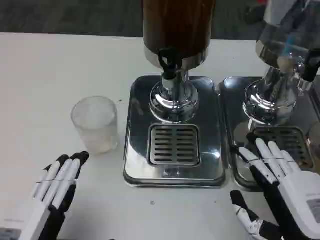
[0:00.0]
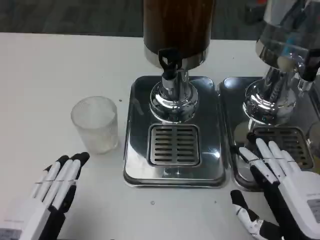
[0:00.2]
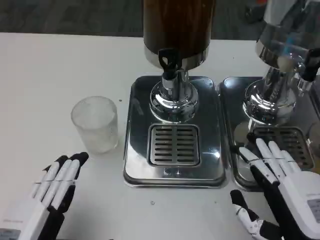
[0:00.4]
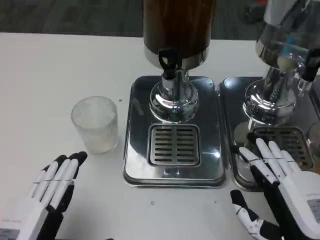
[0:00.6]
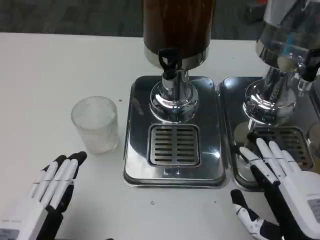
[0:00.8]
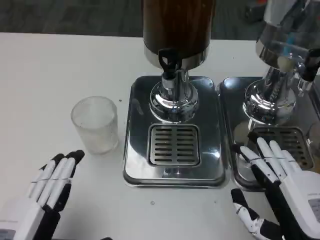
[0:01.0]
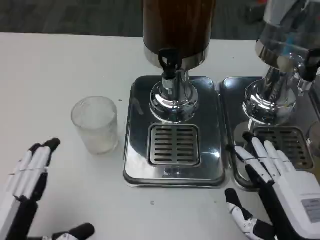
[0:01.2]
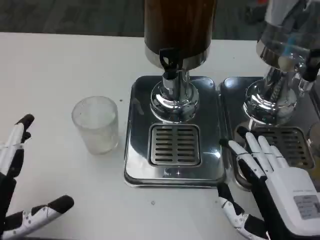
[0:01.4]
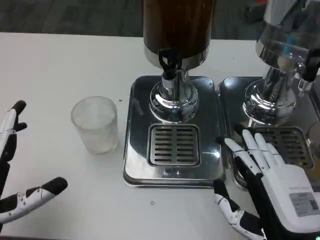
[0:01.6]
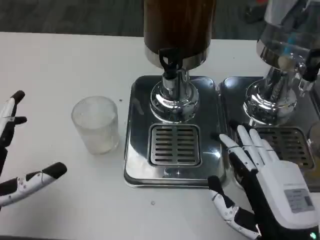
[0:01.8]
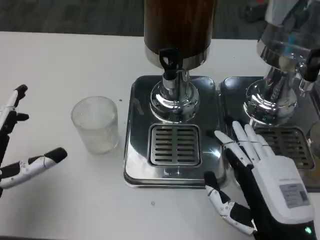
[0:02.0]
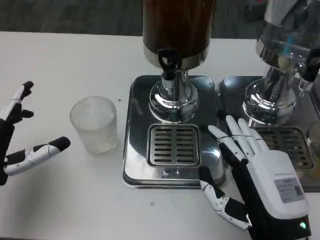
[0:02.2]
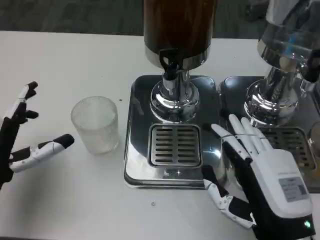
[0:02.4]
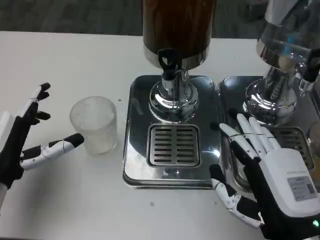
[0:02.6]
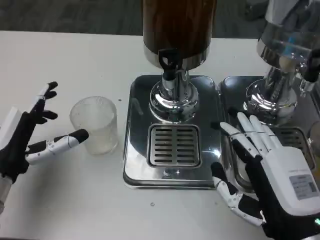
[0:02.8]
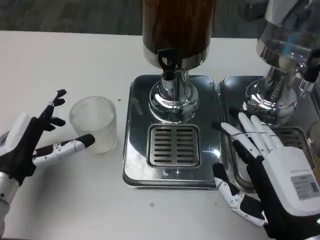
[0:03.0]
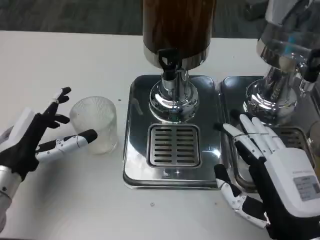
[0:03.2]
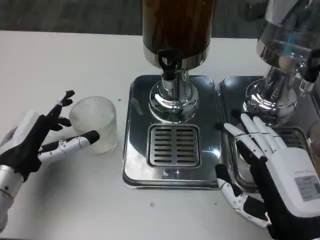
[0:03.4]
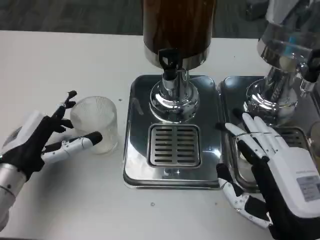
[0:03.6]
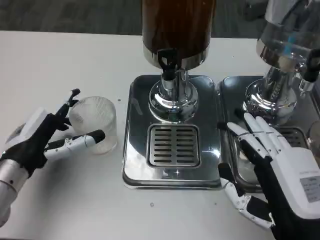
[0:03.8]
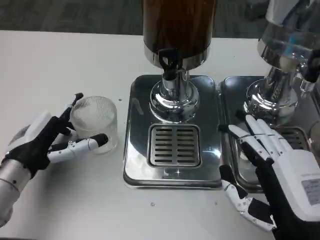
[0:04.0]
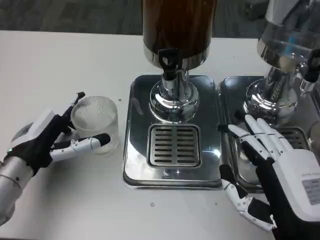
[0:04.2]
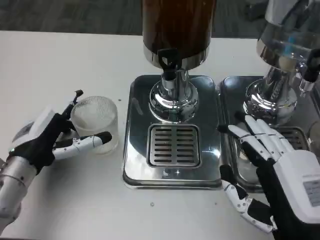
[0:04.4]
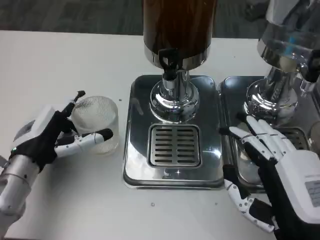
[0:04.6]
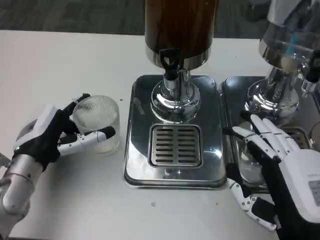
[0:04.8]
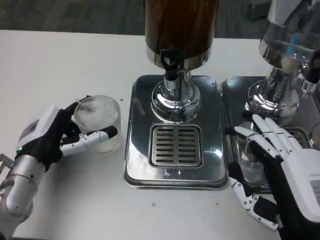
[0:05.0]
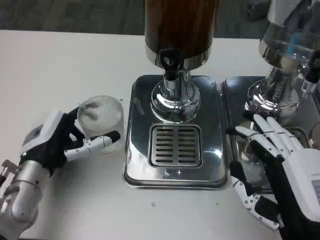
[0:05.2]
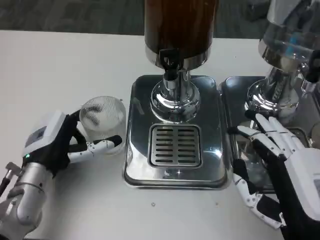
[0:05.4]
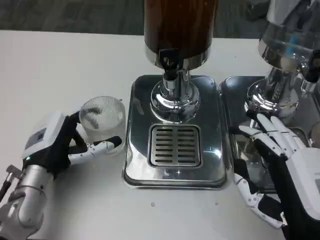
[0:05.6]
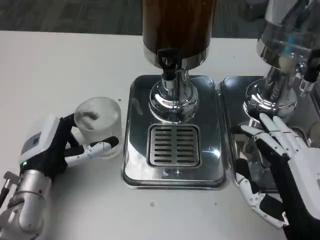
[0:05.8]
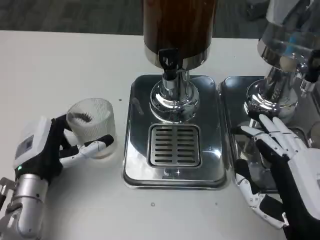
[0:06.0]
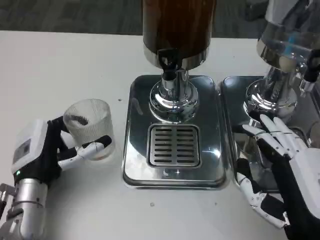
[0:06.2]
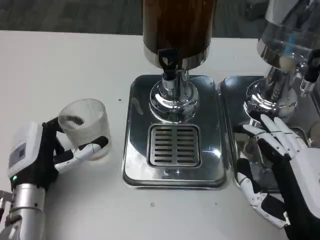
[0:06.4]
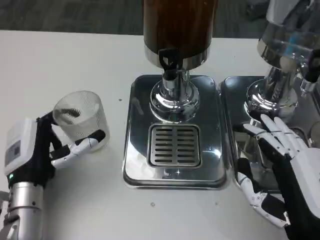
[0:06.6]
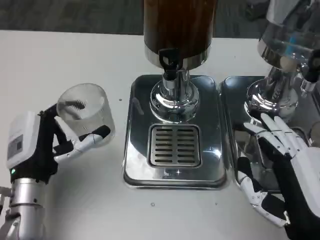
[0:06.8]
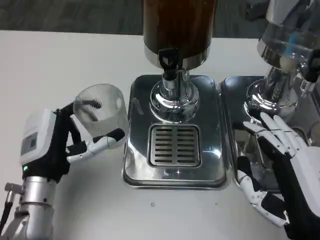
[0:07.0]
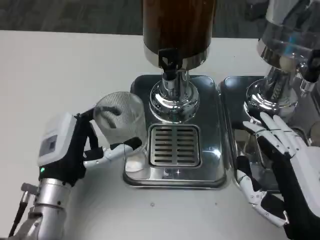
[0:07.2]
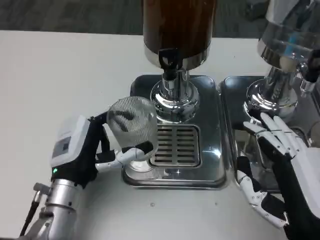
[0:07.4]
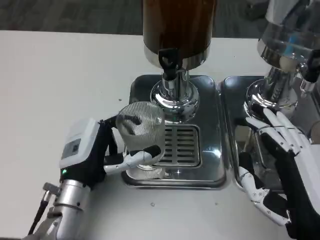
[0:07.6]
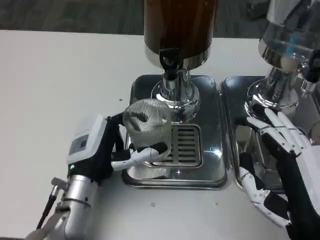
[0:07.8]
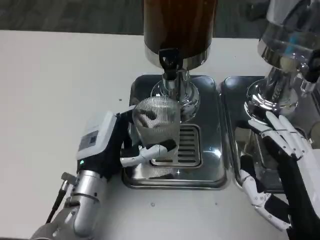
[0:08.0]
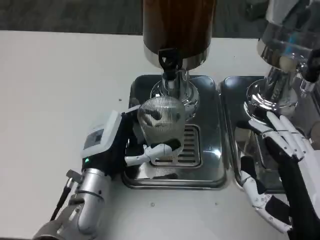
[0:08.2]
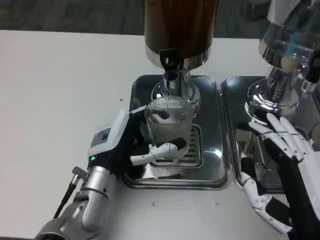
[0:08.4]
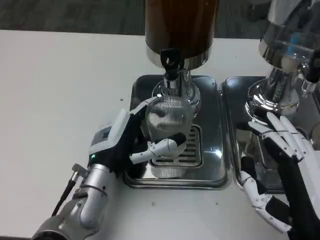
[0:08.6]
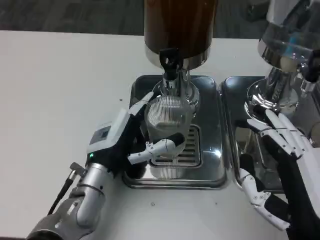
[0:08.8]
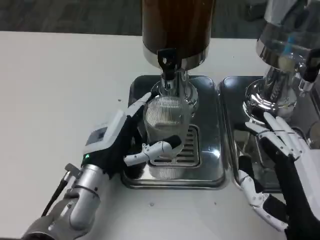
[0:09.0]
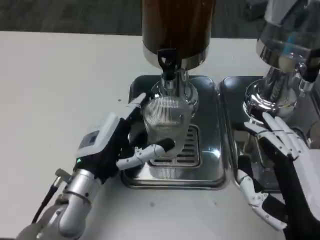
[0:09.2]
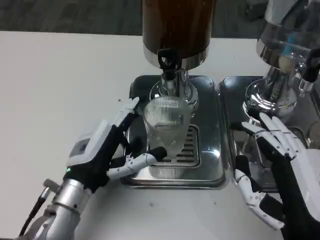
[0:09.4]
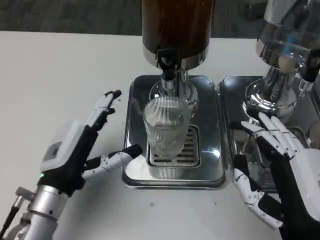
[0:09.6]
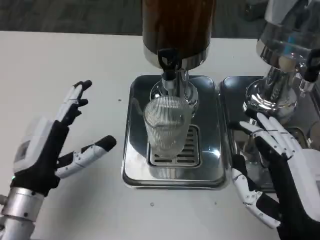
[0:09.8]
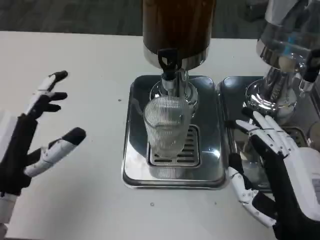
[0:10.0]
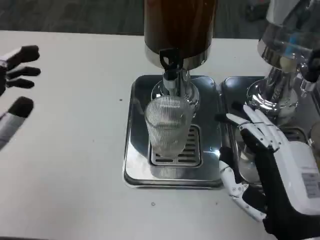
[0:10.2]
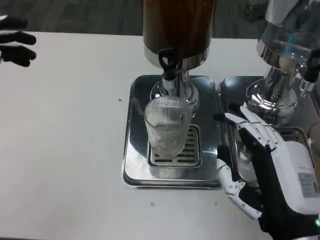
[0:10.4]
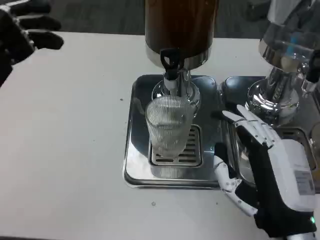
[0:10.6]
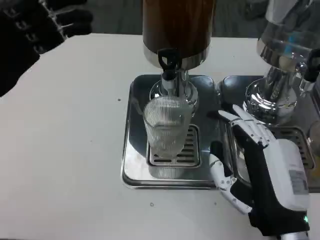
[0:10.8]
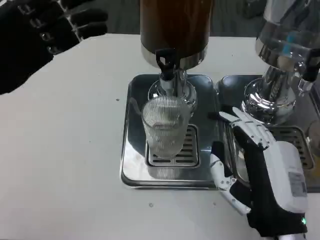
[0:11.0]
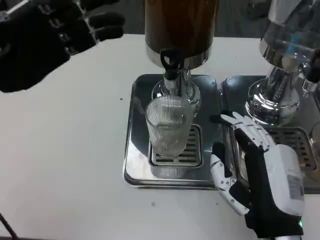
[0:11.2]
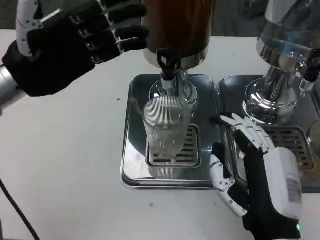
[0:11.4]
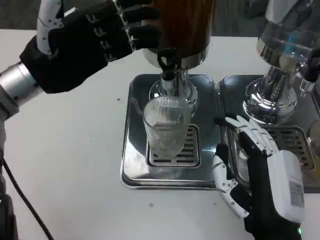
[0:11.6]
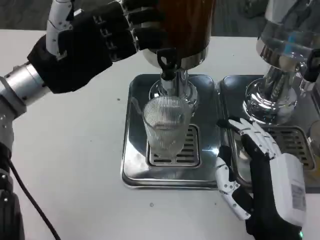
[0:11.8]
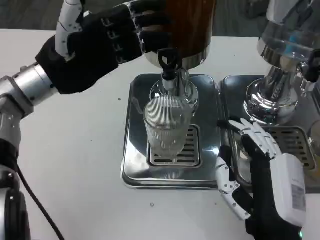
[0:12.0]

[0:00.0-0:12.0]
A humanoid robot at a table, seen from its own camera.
Task of the whole recording: Grasp the cup under the faucet to collect the drink, then remove the cup.
0:00.0 to 0:01.6: The left hand moves forward, some 5 cm.
0:01.6 to 0:03.0: The left hand travels forward by approximately 10 cm.
0:03.0 to 0:06.0: The hands stay close to where they were, moving slightly.
0:06.0 to 0:07.6: The left hand is displaced to the right by some 5 cm.
0:07.6 to 0:09.0: The hands move only a little.
0:09.0 to 0:10.4: The left hand moves to the left and upward, about 20 cm.
0:10.4 to 0:12.0: The left hand travels forward and to the right by approximately 15 cm.

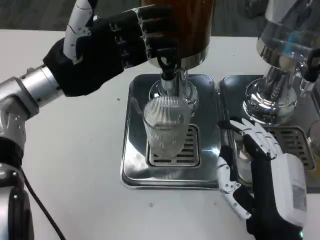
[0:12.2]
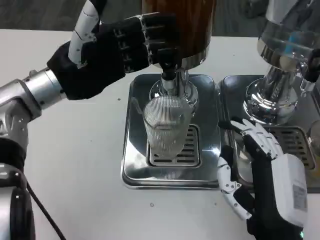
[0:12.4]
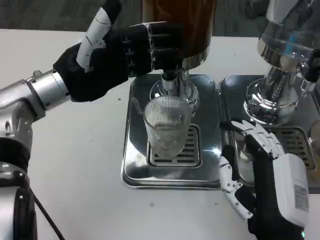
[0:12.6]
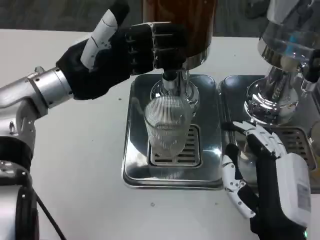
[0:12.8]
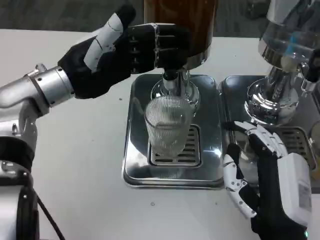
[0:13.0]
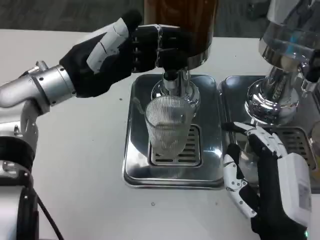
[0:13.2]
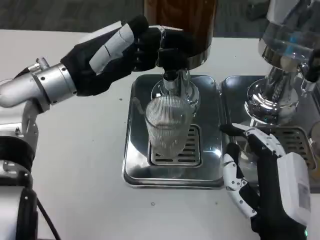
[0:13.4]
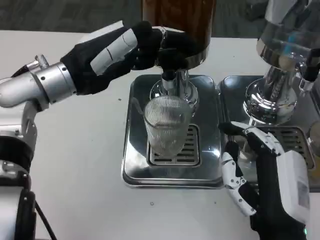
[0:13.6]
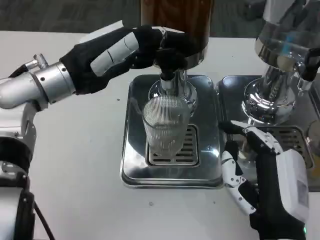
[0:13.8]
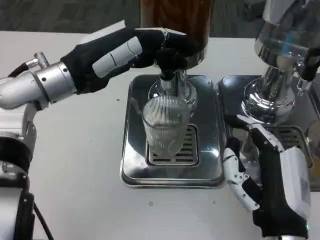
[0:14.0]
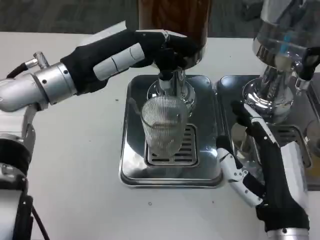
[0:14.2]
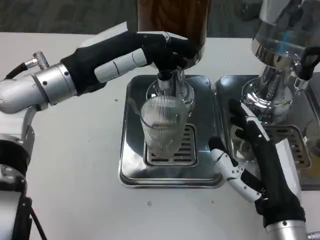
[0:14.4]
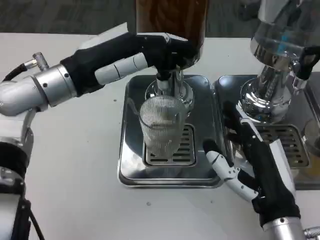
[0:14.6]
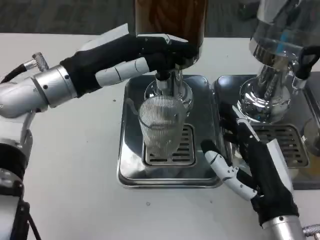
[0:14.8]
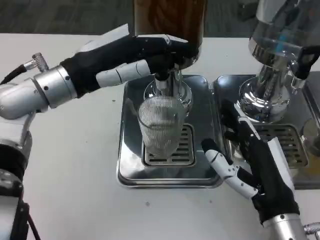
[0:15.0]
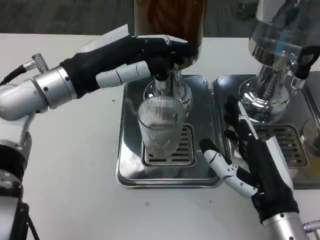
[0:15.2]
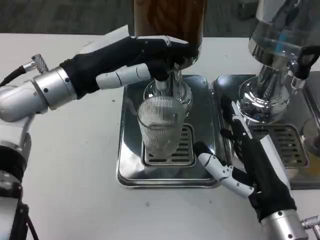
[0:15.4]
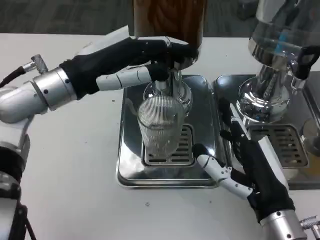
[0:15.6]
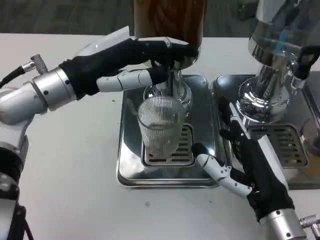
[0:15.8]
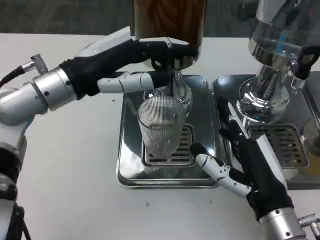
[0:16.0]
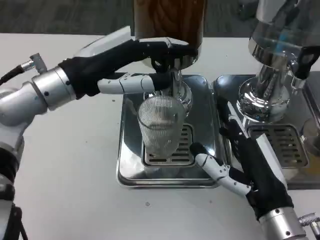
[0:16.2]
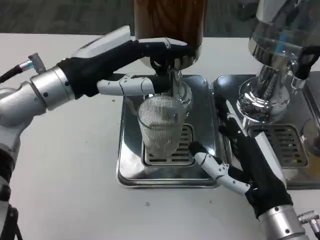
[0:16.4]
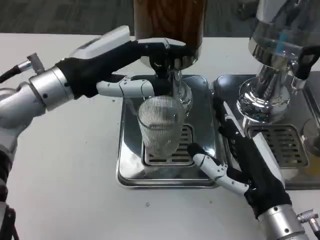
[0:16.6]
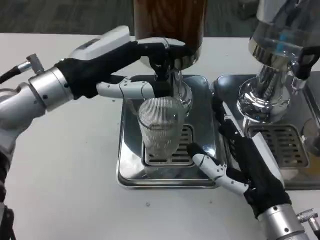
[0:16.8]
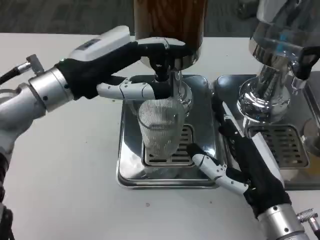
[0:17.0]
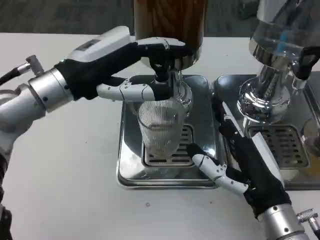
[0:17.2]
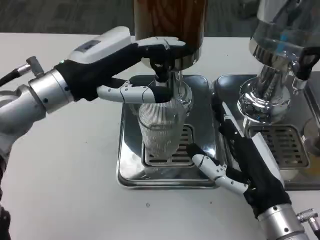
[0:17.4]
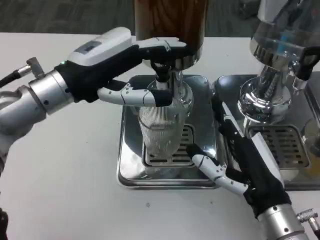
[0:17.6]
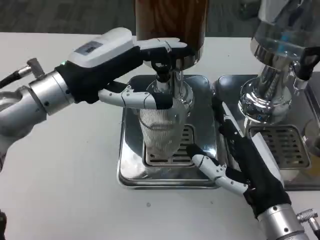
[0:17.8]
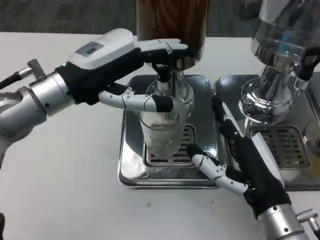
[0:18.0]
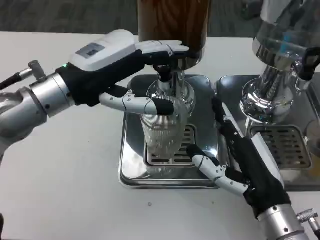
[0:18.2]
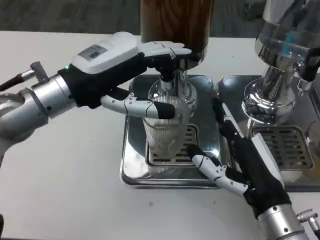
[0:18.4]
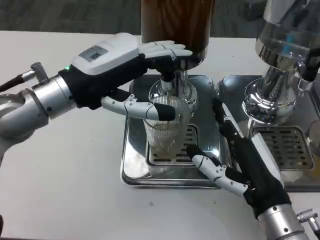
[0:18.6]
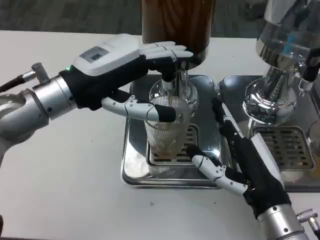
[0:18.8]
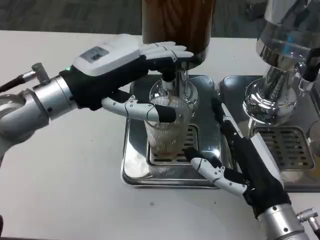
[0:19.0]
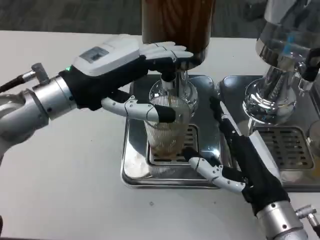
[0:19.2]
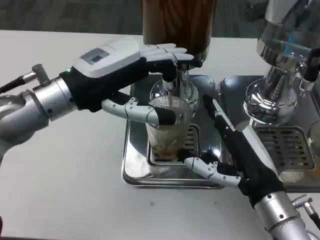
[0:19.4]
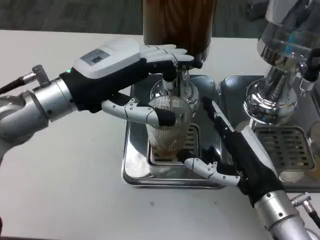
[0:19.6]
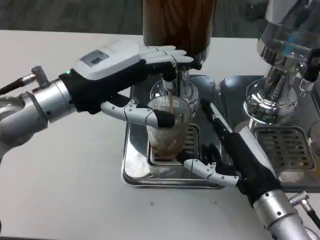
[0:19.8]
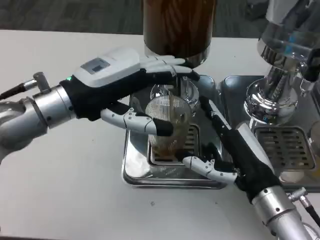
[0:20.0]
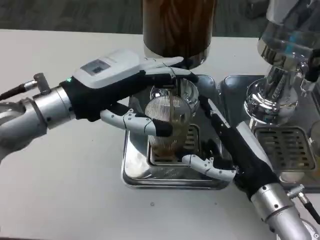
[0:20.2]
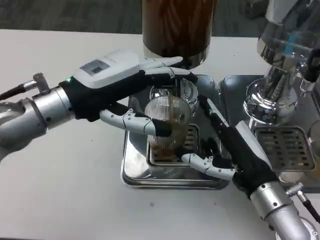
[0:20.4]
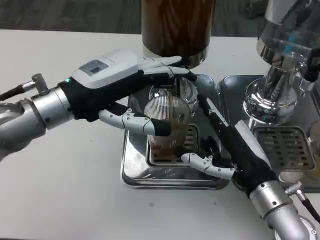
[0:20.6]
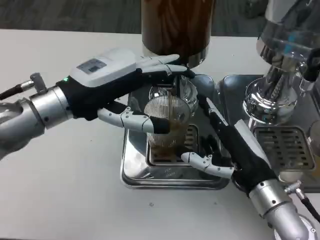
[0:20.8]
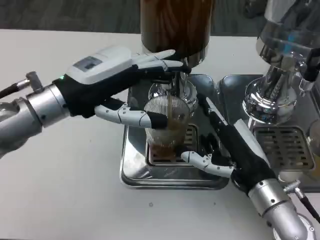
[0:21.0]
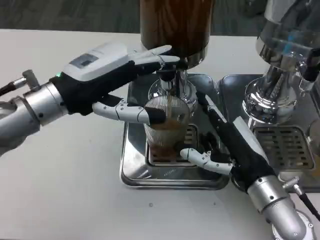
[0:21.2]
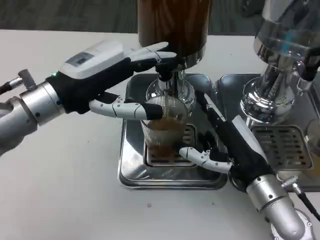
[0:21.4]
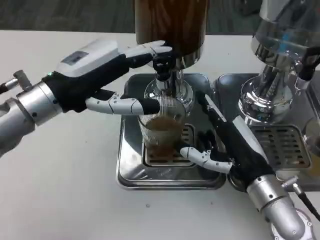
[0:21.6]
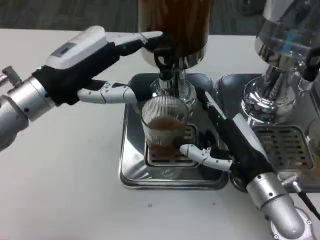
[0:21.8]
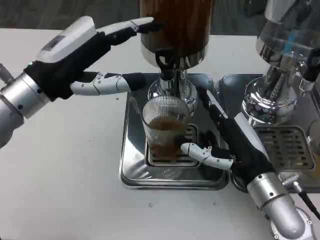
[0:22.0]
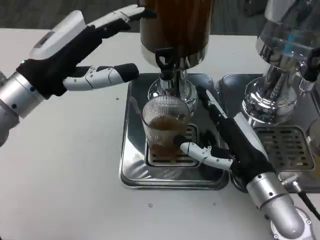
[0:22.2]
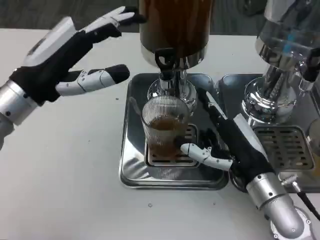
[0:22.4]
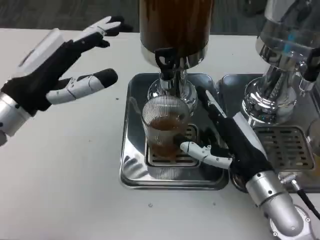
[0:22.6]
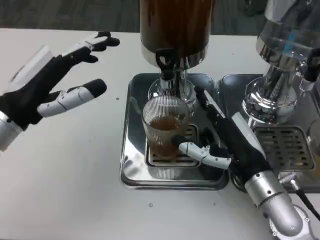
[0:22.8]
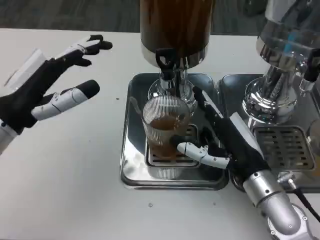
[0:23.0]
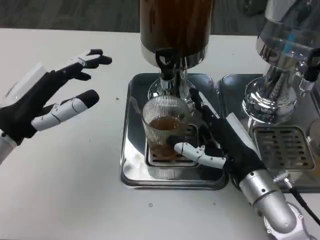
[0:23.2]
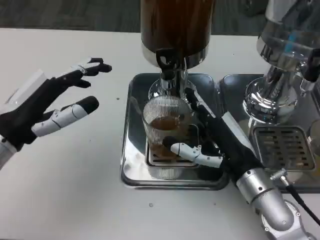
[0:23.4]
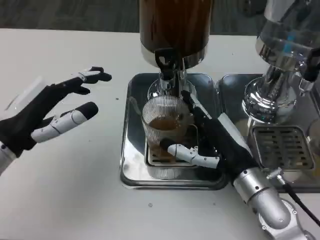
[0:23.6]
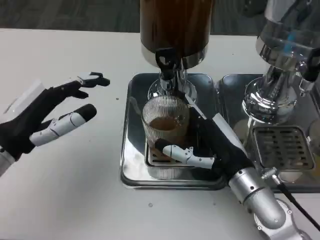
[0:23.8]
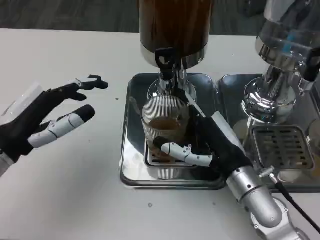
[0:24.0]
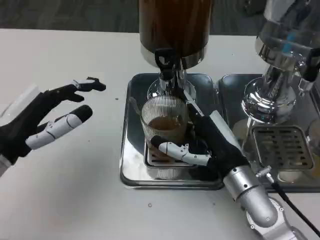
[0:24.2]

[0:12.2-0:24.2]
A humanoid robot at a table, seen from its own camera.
Task of the whole recording: Grasp the cup under the faucet to collect the drink, then remove the cup.
0:15.2 to 0:16.6: There are only small adjustments of the hands.
0:19.8 to 0:21.2: There are only small adjustments of the hands.
0:21.2 to 0:22.6: The left hand changes place by some 5 cm.
0:22.6 to 0:24.2: The left hand shifts by roughly 5 cm.
